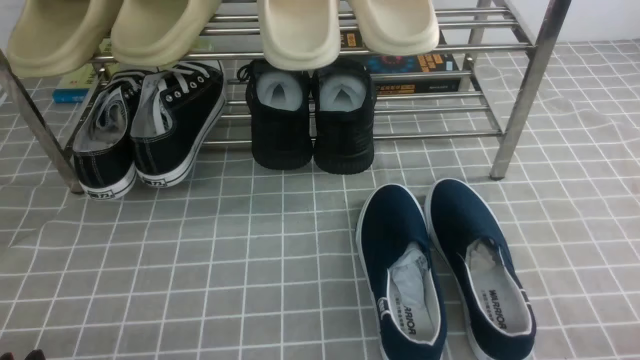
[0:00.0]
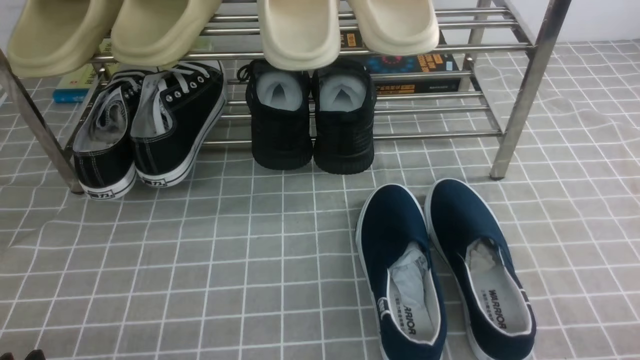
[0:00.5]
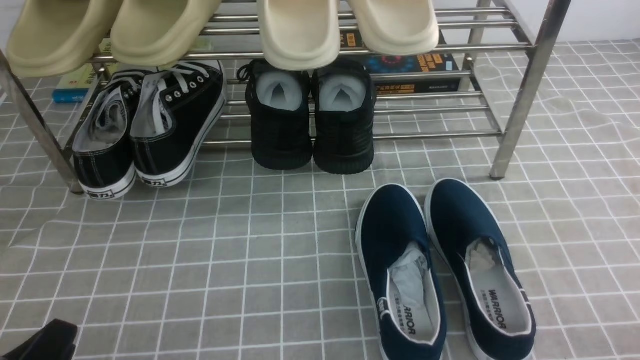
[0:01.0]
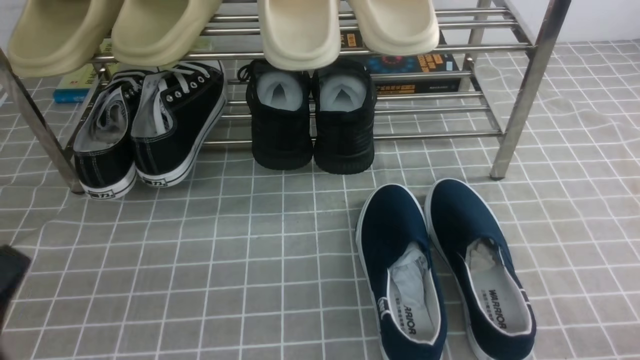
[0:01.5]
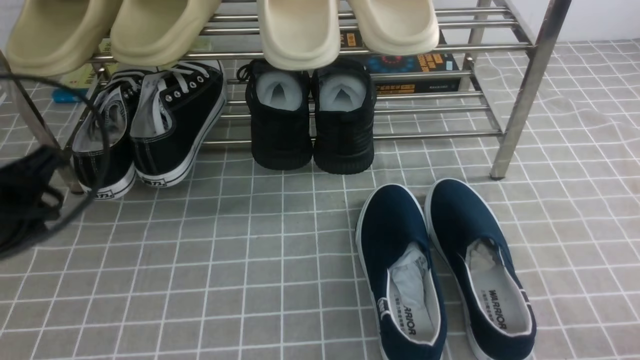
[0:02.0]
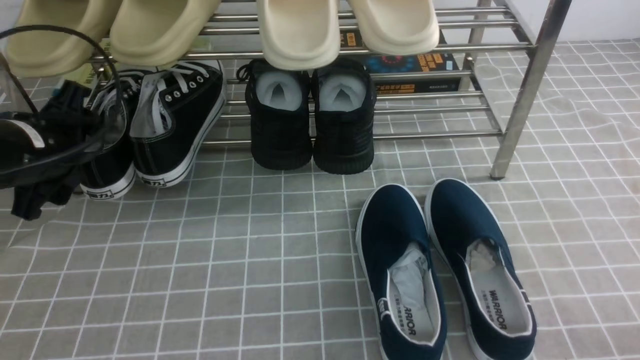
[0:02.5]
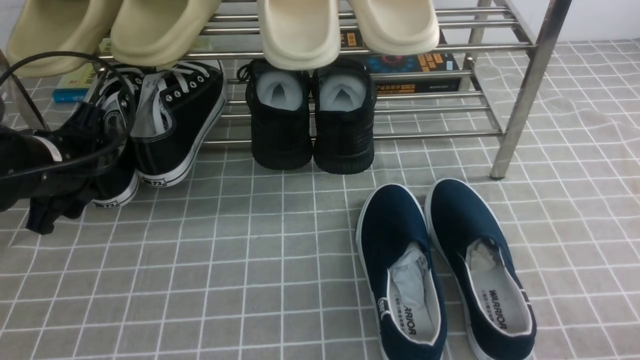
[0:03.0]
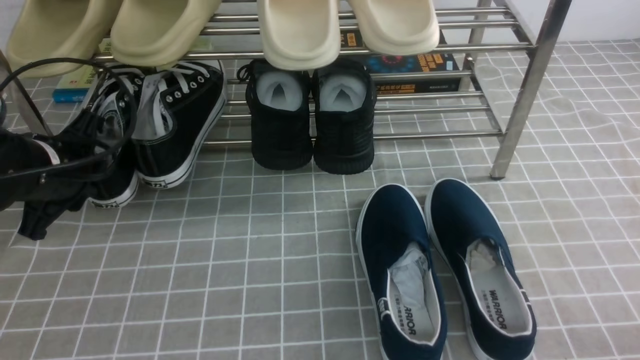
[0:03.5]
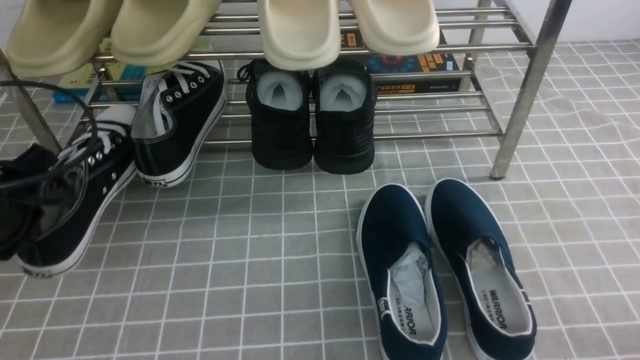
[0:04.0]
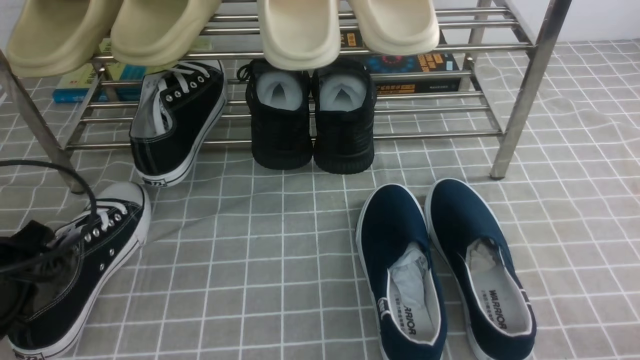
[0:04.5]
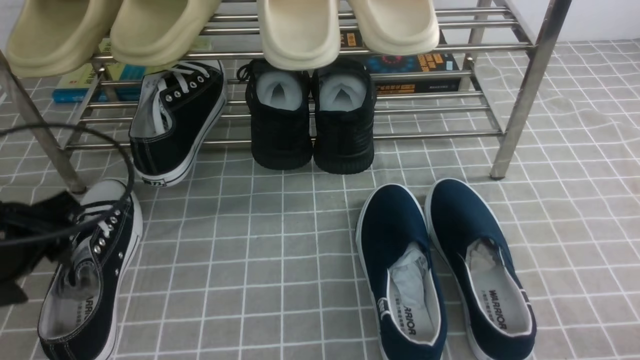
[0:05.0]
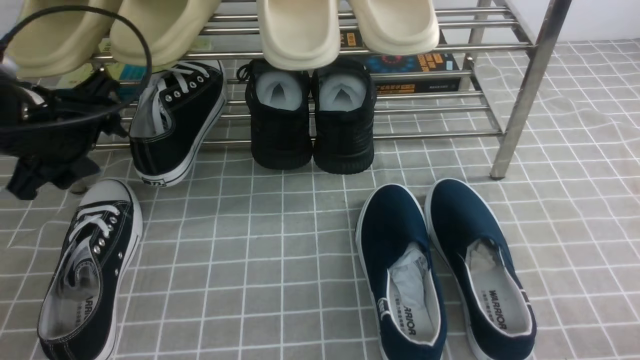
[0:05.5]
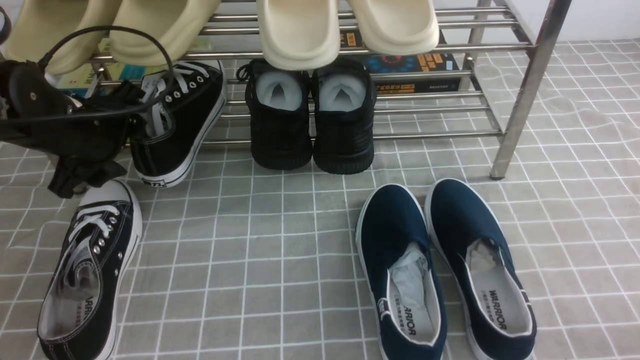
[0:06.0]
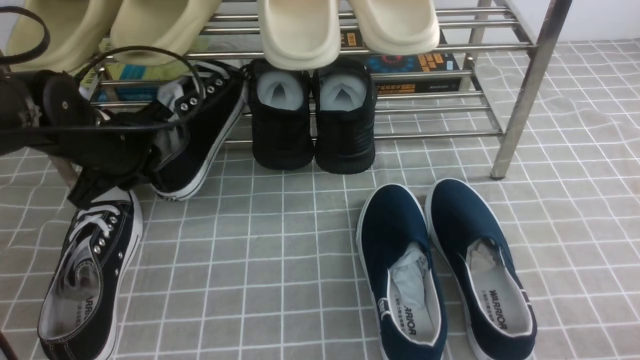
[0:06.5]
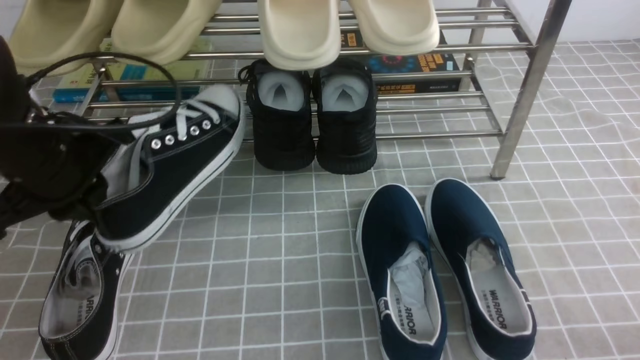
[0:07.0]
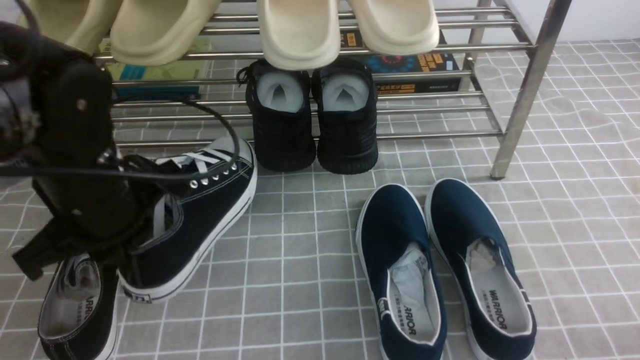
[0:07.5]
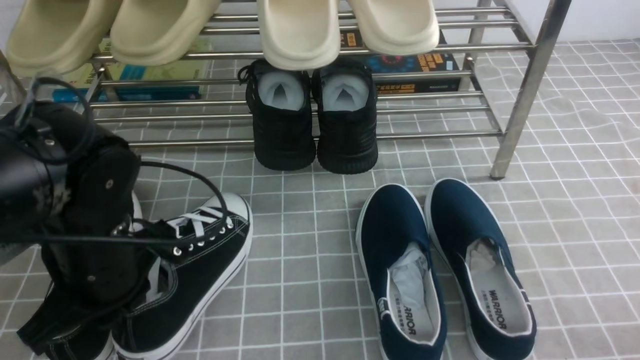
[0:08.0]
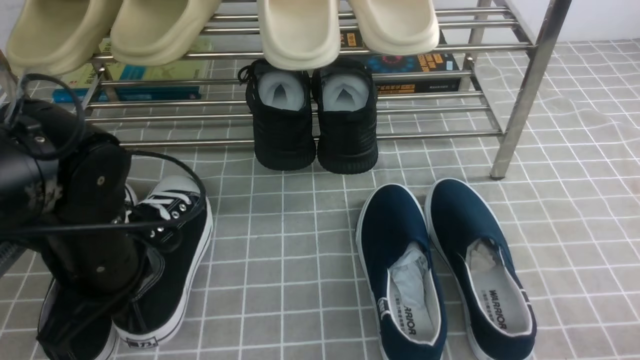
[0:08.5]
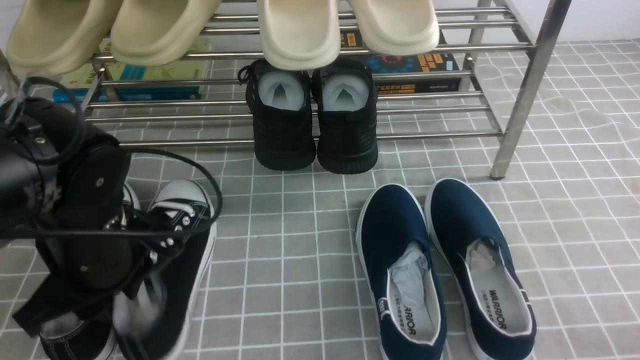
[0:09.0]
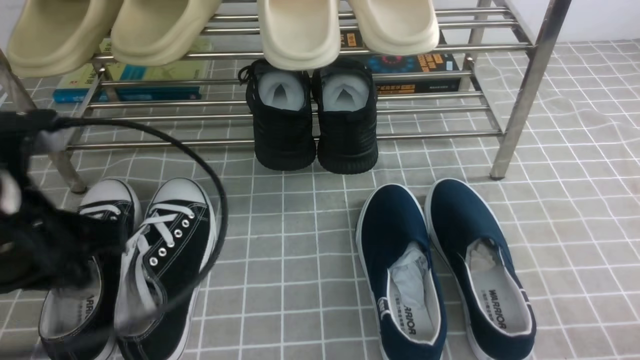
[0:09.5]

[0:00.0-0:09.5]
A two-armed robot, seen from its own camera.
Step, 0:00.0 to 0:03.0: use the left arm to clamp a shoe on the left side of the shoe rack.
Step, 0:03.5 to 0:05.0: Use your left arm to remove the clamped shoe from the shoe rack and put it down.
Step, 0:05.5 to 0:06.5: use the left arm to clamp a shoe on the left side of the shoe rack.
0:00.0 to 0:02.0: The left gripper shifts approximately 20 cm forward and upward.
0:02.0 to 0:04.0: The left gripper reaches approximately 10 cm forward, then returns, and opens and closes again.
0:04.0 to 0:05.5: The left gripper moves forward, approximately 5 cm, and opens its fingers.
0:05.5 to 0:07.5: The left gripper travels to the right and backward by some 10 cm, and closes its fingers.
0:07.5 to 0:09.5: The left gripper is displaced backward by roughly 10 cm.

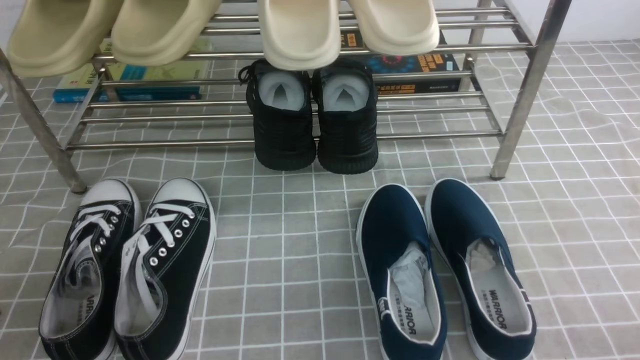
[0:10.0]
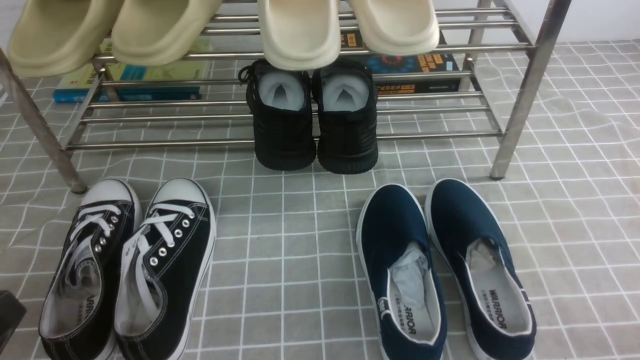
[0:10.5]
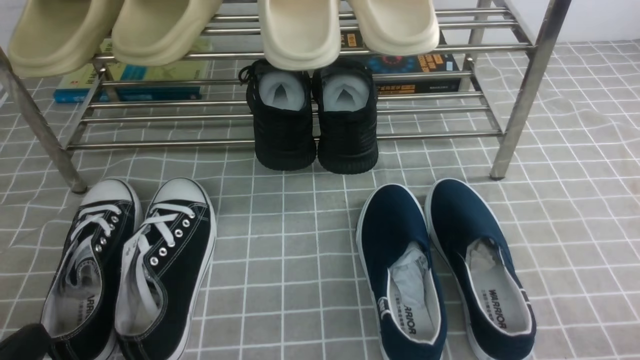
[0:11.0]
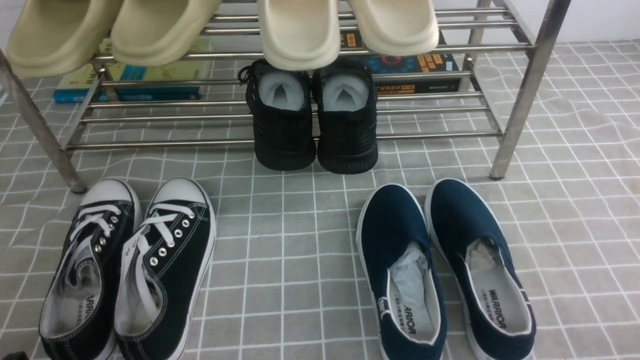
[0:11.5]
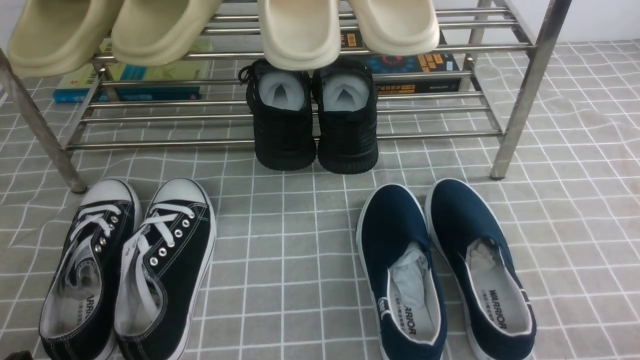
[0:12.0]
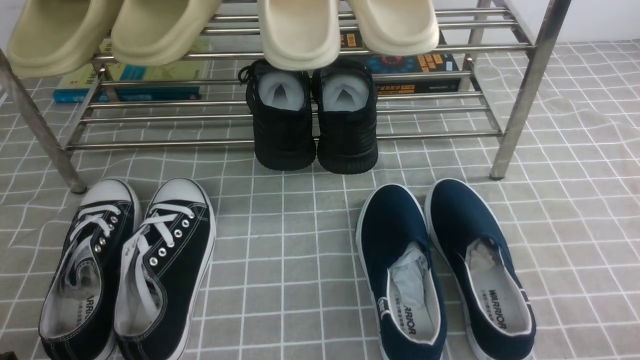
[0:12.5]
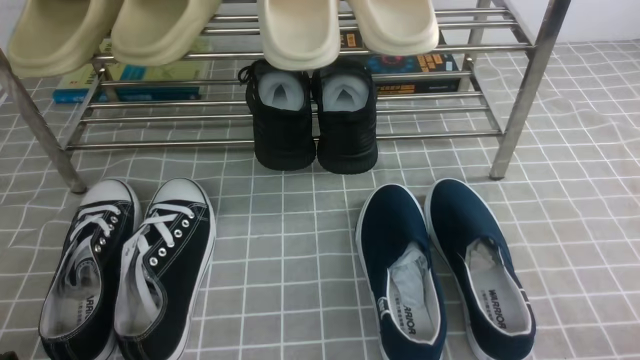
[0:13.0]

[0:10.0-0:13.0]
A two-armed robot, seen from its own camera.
0:11.5 to 0:13.0: Both grippers stay put.
